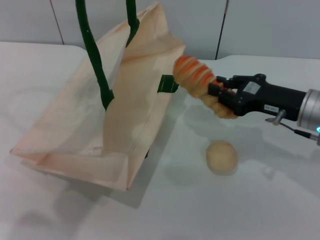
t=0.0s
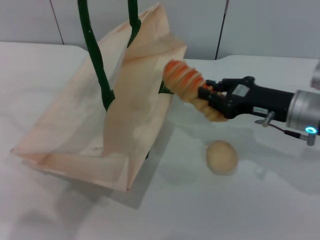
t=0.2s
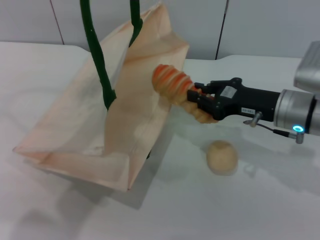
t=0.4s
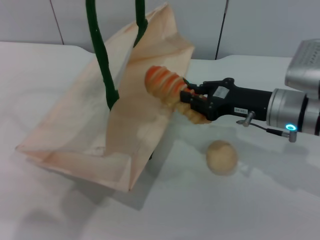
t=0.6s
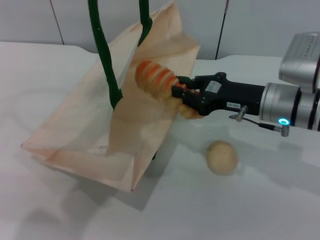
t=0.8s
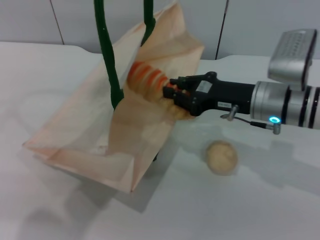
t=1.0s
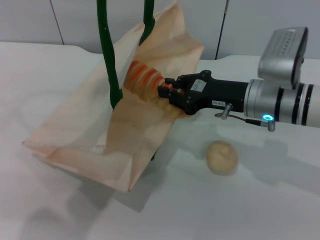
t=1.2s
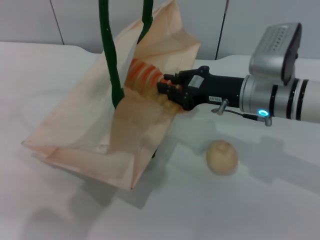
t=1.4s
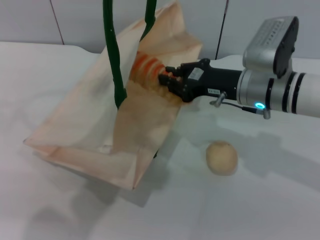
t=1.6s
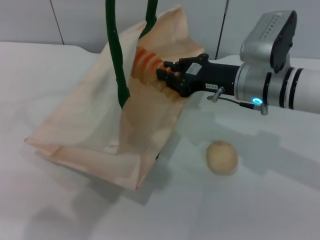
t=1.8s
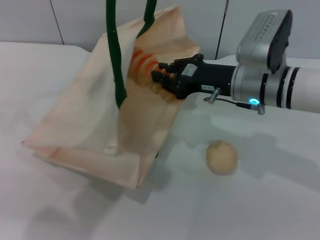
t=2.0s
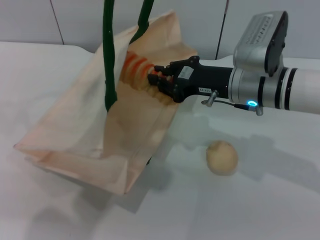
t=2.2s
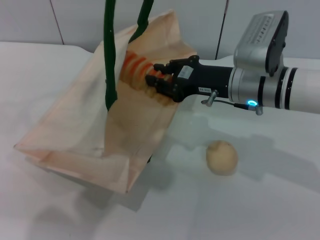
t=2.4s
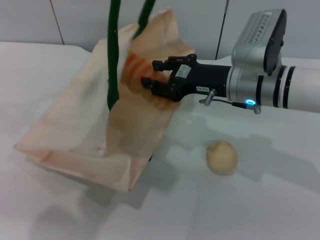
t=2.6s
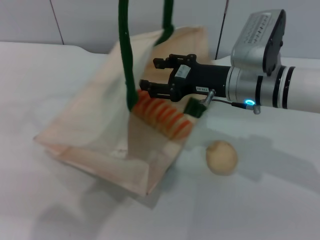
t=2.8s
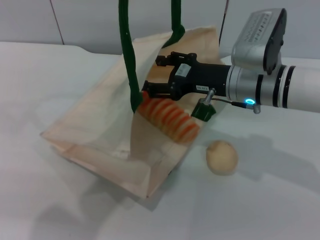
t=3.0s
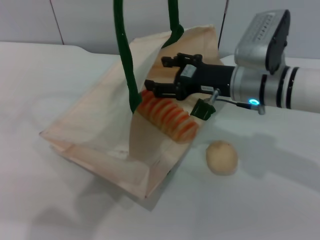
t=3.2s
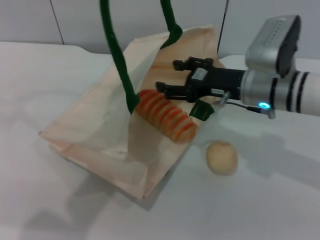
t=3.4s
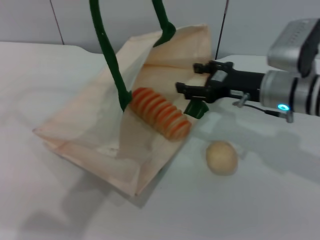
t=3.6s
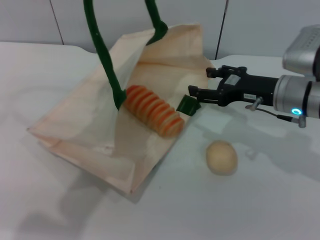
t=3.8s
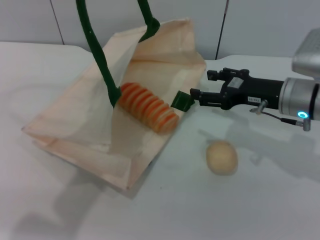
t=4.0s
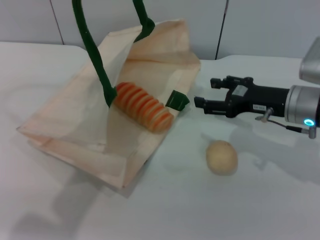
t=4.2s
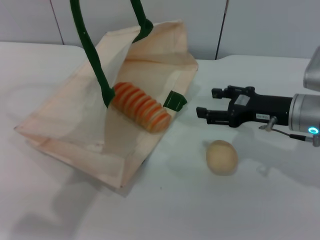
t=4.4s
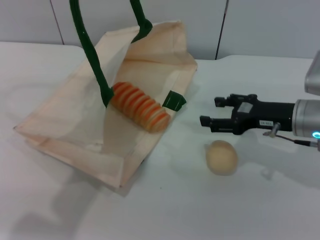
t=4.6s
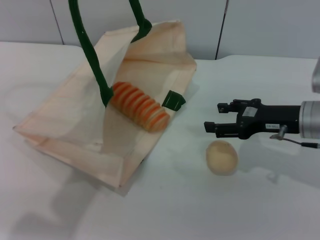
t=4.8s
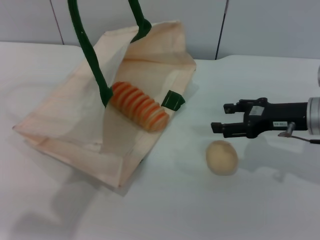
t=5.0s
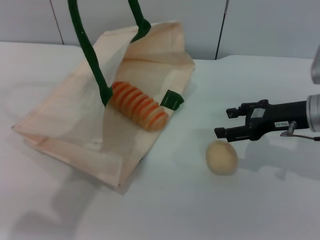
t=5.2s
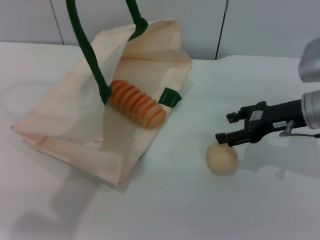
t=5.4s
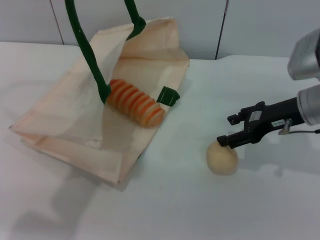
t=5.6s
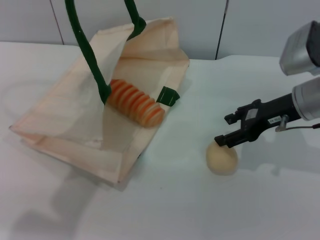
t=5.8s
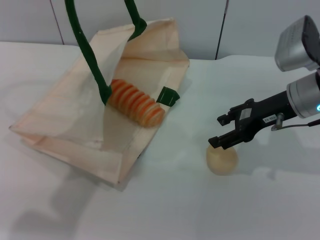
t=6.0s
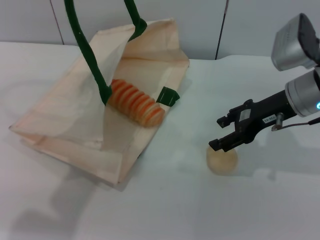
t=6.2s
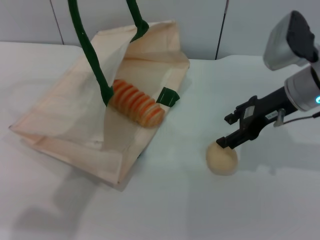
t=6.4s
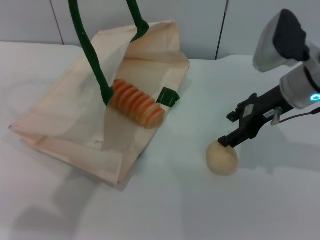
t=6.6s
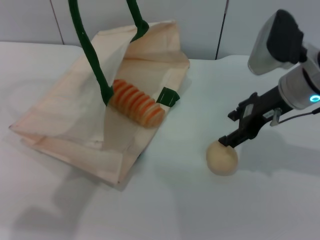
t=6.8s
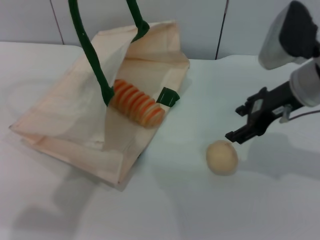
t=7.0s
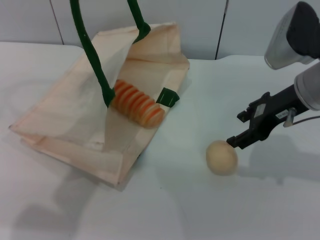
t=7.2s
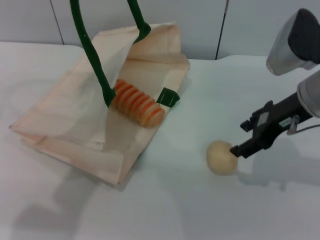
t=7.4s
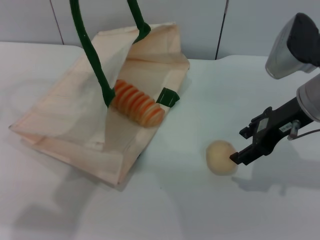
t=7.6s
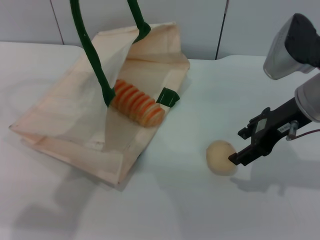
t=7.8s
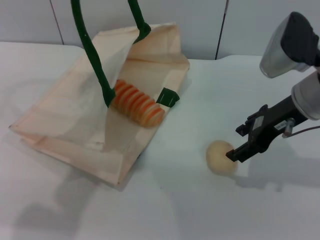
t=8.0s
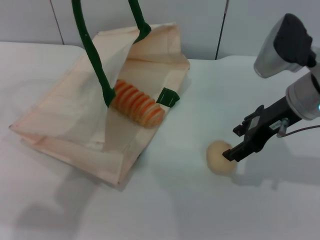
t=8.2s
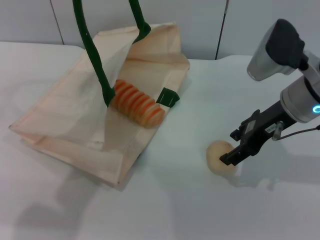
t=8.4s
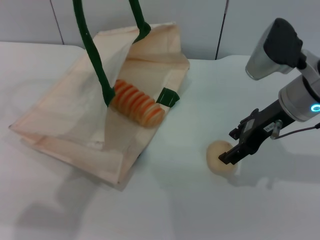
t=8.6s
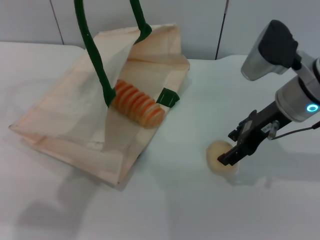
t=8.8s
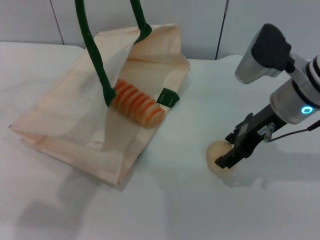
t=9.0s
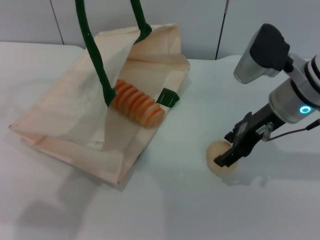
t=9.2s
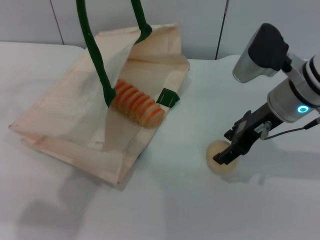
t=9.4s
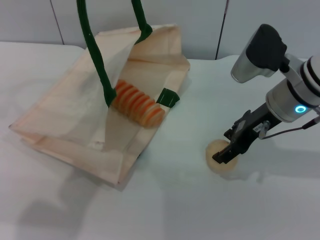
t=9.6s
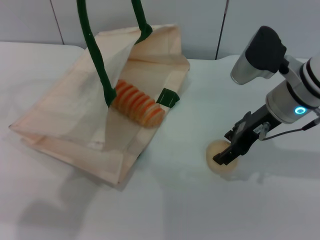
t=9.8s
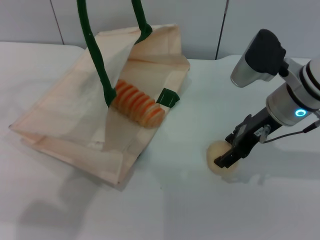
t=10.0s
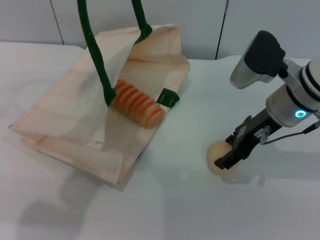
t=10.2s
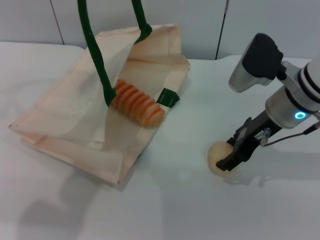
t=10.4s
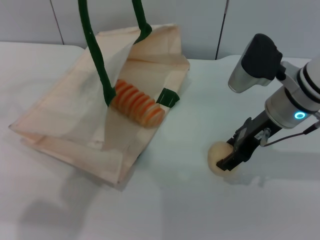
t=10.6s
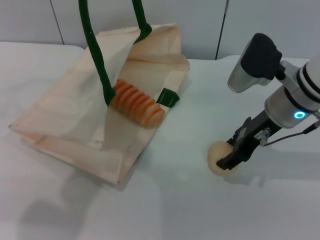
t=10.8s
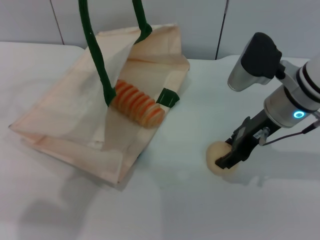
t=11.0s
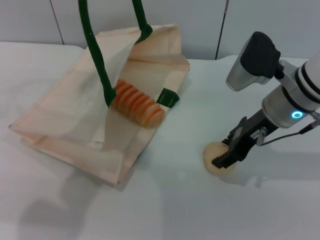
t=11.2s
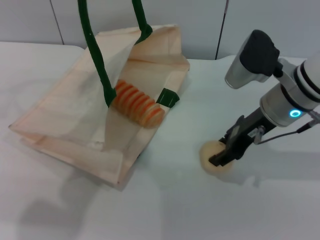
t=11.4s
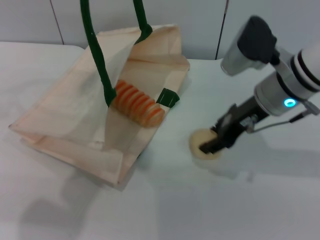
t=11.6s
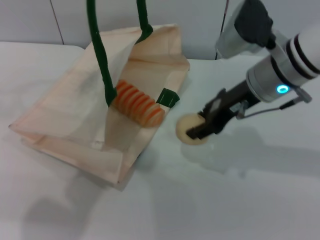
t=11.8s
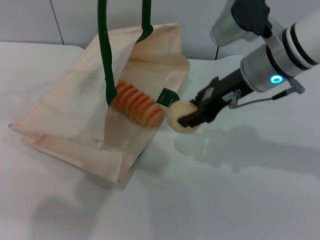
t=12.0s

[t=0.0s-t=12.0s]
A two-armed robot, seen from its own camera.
Task of the whole recording: pick up the bread and egg yolk pastry from the table and place it in the white handbag.
Step, t=0.0s to t=3.8s: Place the bread into the woven bag with the right gripper.
Step, t=4.2s to t=11.6s: Pick up the egg yolk pastry with the right gripper.
t=0.0s to t=1.6s: The right gripper goes about 10 cm to the left.
t=1.6s to t=3.0s: The right gripper opens its fingers.
t=3.0s to t=4.4s: The right gripper travels to the right by roughly 10 cm.
t=4.4s to t=6.0s: The right gripper ends up some 5 cm from where it was.
t=6.0s to t=7.6s: The right gripper changes place by roughly 5 cm.
t=7.6s to t=10.4s: The grippers move only a little.
t=10.4s to t=12.0s: The right gripper shifts by about 5 cm, and closes.

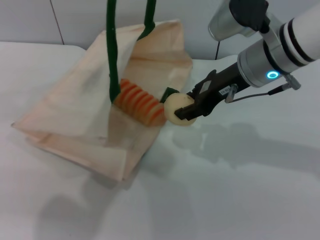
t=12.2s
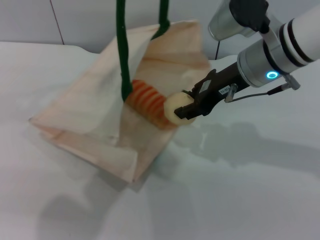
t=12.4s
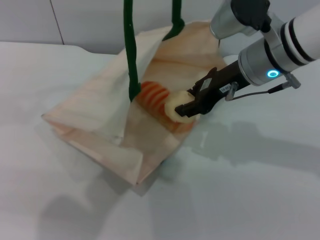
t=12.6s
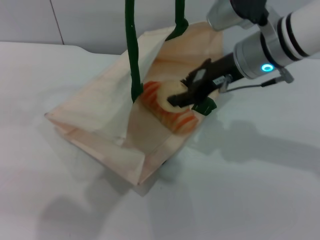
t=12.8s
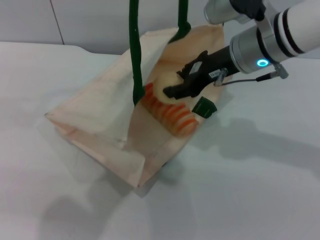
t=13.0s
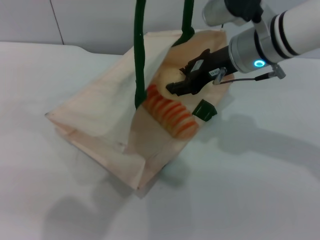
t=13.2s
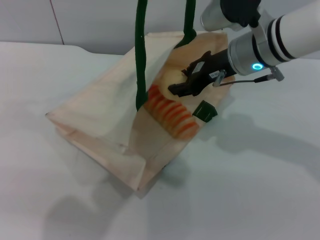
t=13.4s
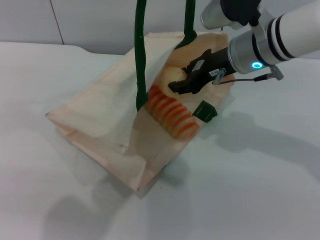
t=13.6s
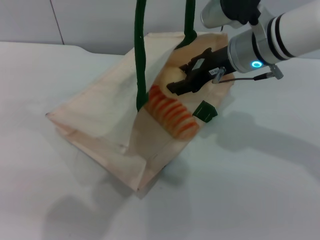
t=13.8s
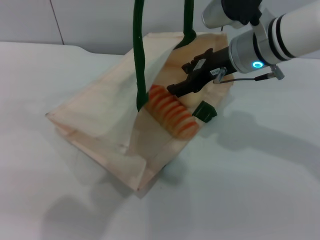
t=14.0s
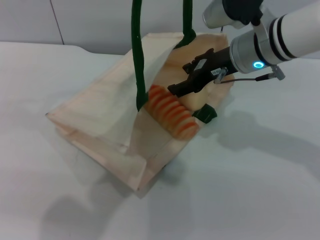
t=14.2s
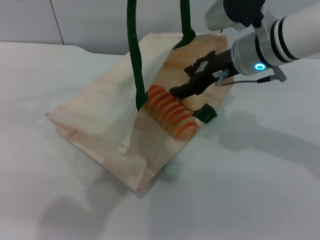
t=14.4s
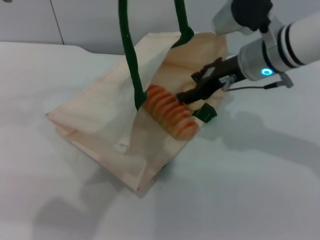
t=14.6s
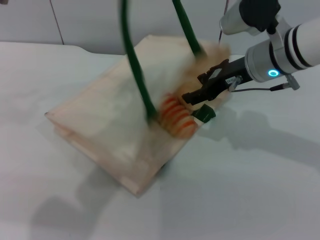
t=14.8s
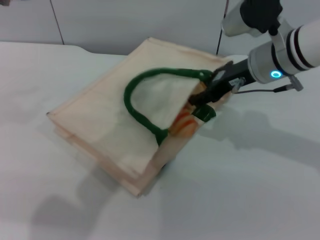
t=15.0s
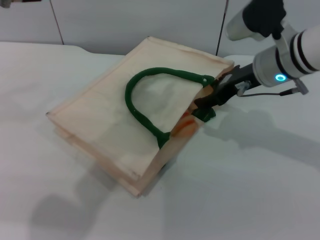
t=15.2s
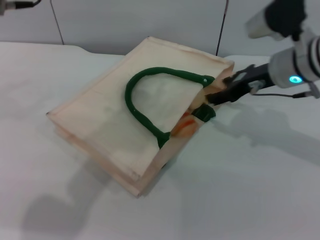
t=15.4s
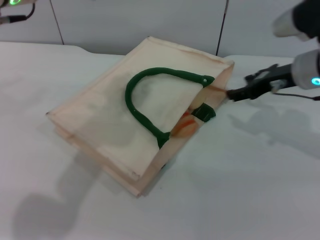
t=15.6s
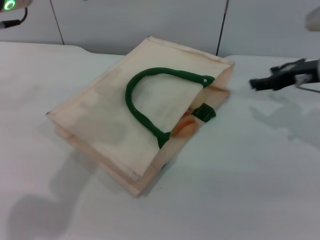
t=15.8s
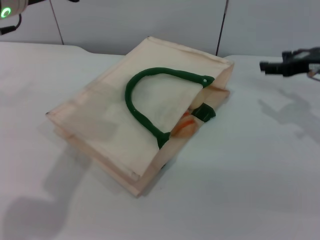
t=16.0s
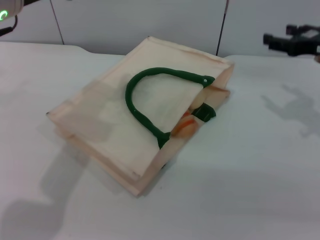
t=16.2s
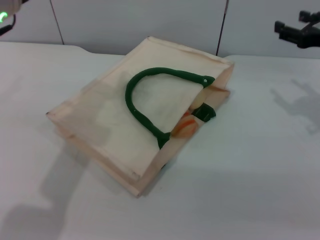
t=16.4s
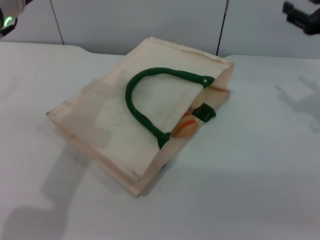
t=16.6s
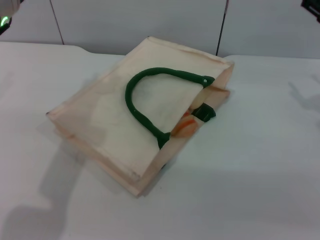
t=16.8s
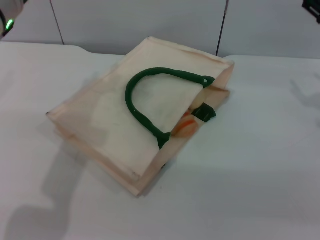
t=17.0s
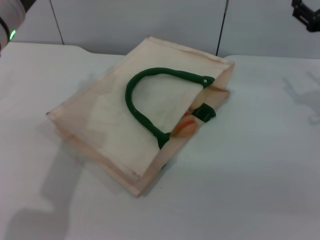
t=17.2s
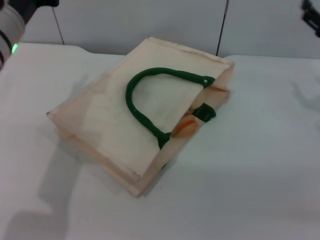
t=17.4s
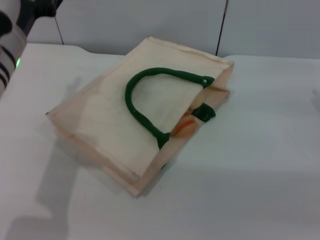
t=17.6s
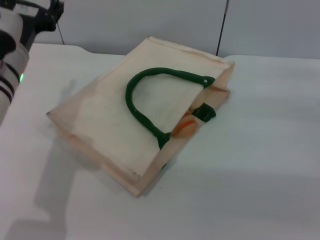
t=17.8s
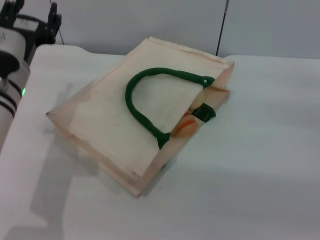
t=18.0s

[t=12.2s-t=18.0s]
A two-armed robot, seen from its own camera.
Task of the whole recording: pick up the bread and egg yolk pastry from the table and place it in the white handbag.
Step, t=12.2s to t=14.6s: Place the egg yolk pastry into the woven bag with the right gripper.
Step, t=14.8s to t=15.8s: Lower the woven bag with the left gripper to close it.
t=13.6s to t=15.0s: The right gripper opens its fingers.
t=15.0s to t=16.6s: The right gripper is displaced to the right by approximately 15 cm, while the left gripper heads downward and to the left, covering approximately 10 cm, and opens.
t=16.6s to t=18.0s: The right gripper goes some 10 cm downward and backward. The left gripper shifts about 10 cm downward.

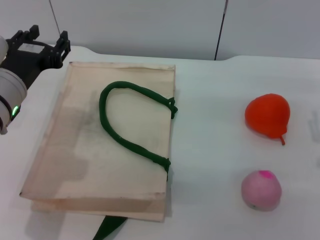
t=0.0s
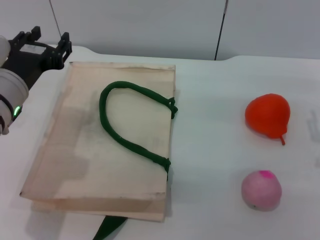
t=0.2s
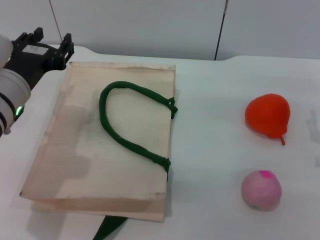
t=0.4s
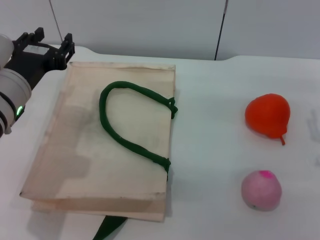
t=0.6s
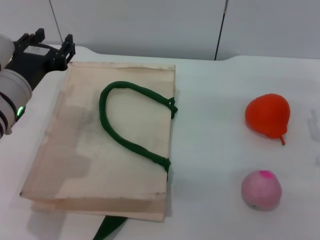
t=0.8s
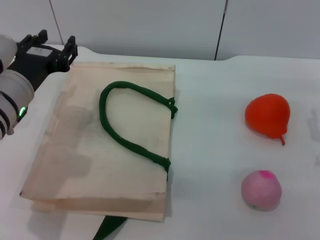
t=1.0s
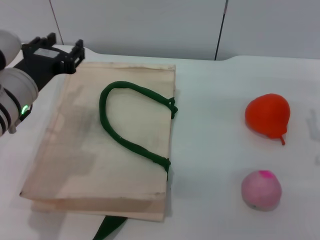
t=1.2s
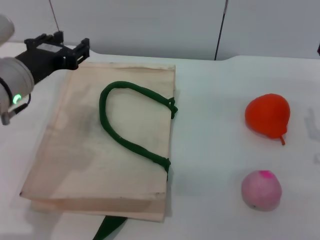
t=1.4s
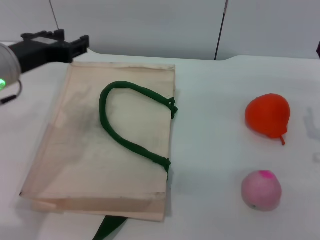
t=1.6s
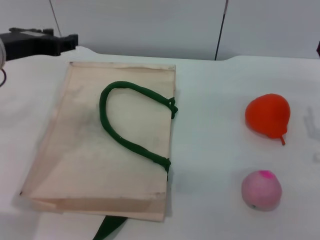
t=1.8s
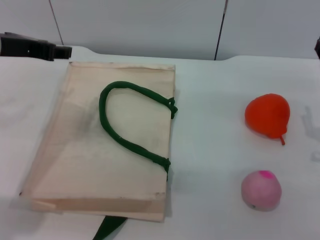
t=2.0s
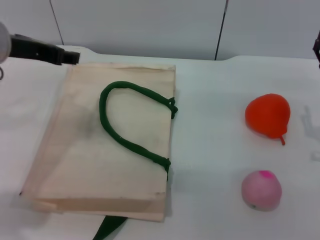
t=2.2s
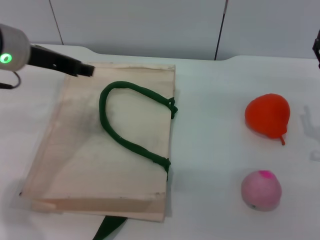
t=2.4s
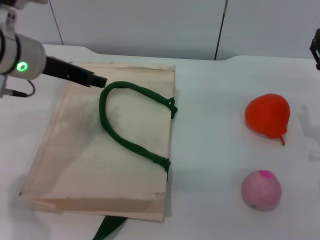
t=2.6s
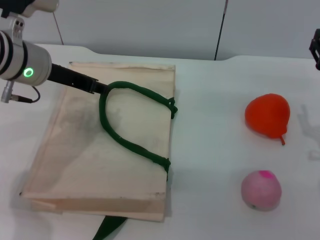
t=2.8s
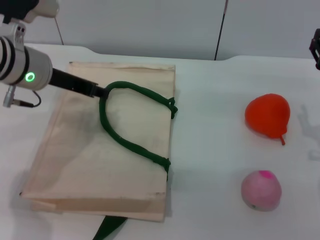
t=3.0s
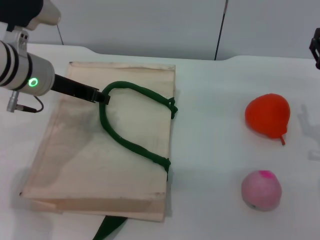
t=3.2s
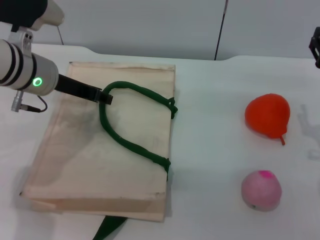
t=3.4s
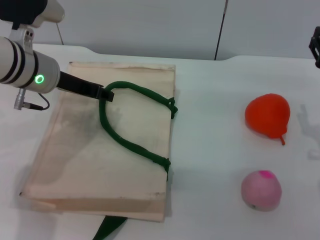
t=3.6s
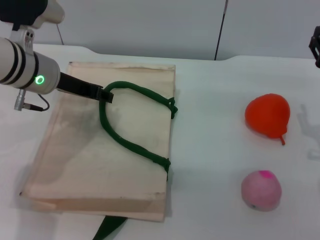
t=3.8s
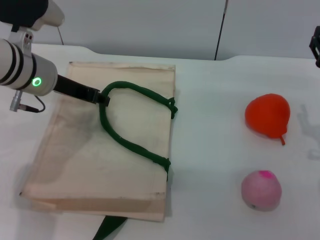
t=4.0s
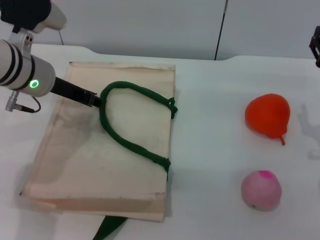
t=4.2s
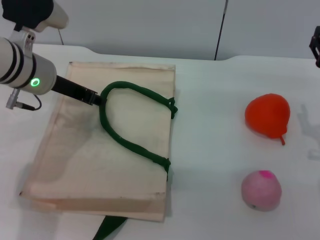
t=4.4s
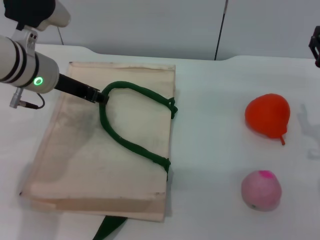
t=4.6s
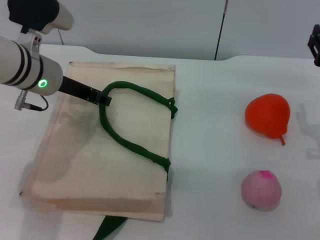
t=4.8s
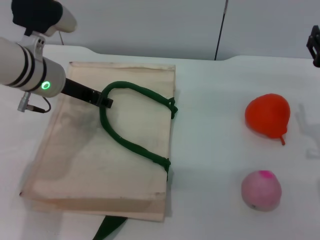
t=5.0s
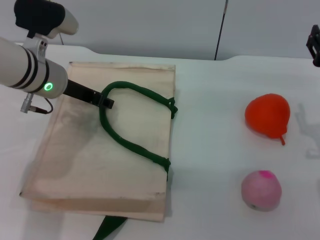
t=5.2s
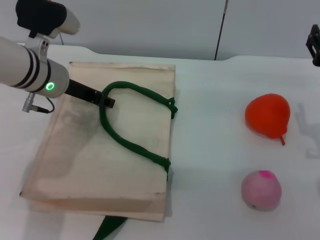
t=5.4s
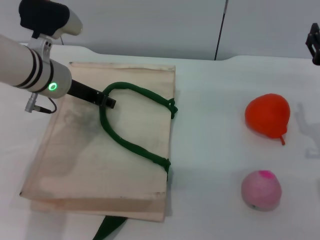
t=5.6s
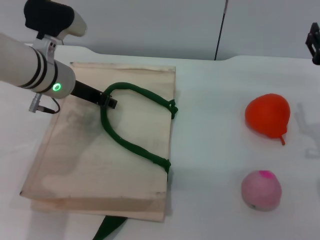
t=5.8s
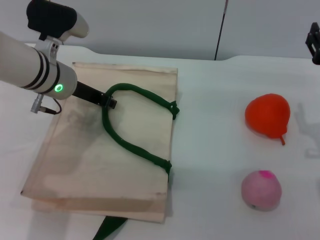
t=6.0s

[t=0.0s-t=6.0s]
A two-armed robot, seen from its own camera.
Task of the whole recording: pick up the orange and peach from the table and place it in the white handbag.
t=1.6s to t=3.0s: The left gripper is displaced forward by about 5 cm.
t=3.0s to t=6.0s: The grippers stay close to where they were, moving slightly.
